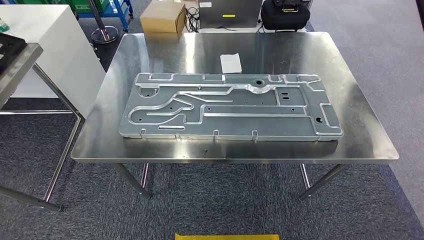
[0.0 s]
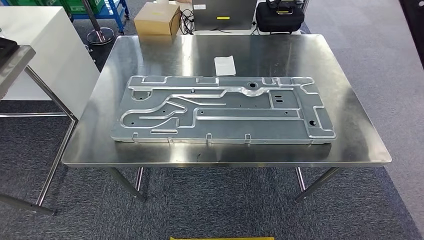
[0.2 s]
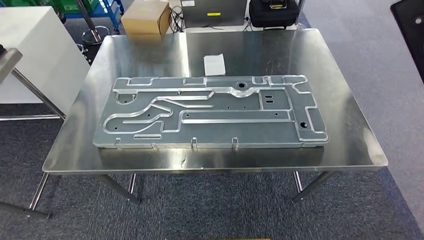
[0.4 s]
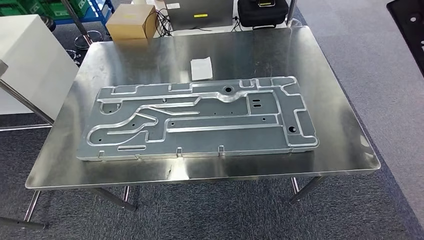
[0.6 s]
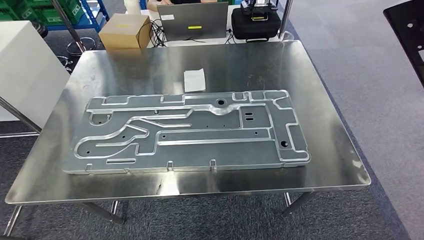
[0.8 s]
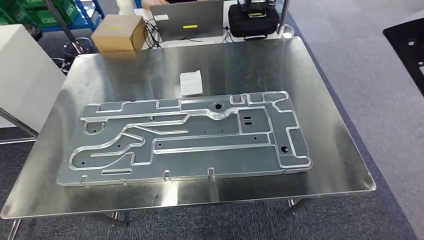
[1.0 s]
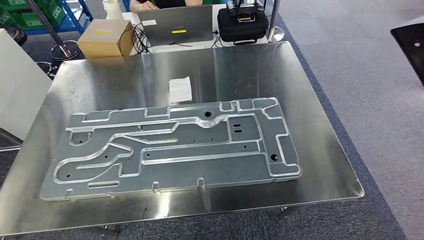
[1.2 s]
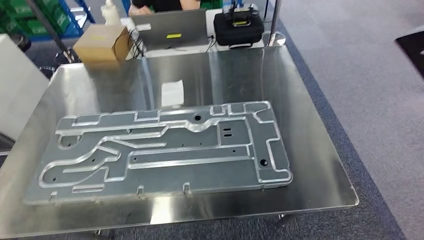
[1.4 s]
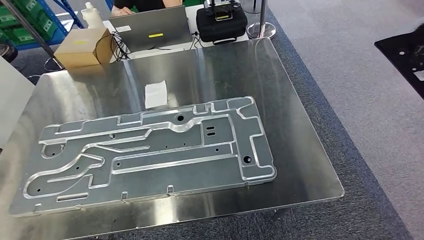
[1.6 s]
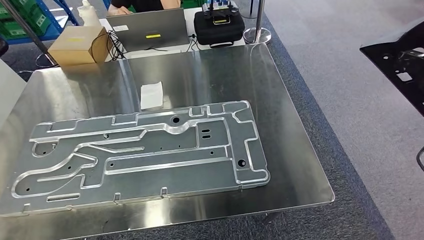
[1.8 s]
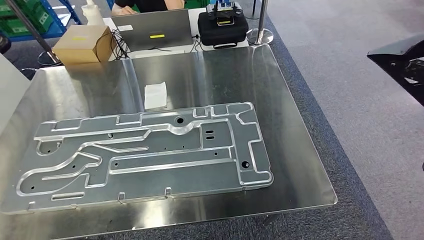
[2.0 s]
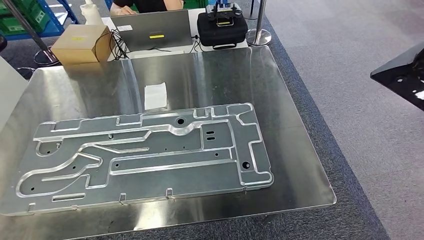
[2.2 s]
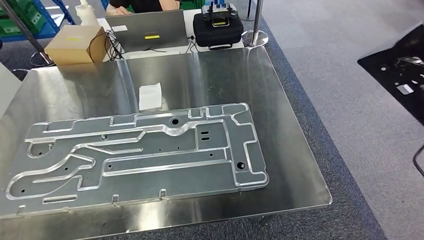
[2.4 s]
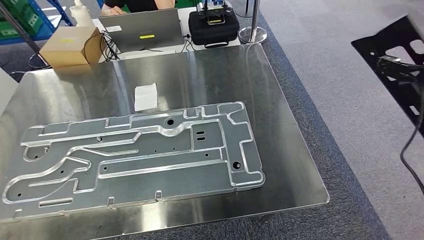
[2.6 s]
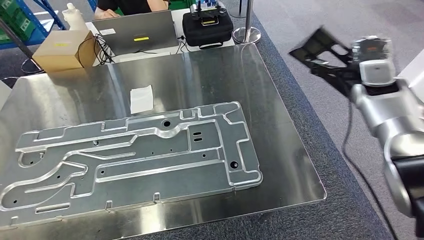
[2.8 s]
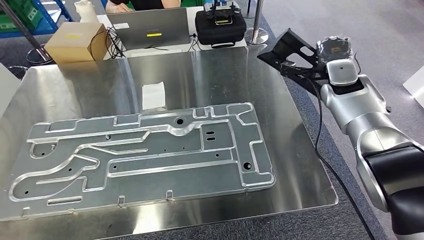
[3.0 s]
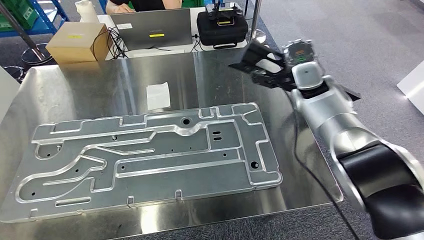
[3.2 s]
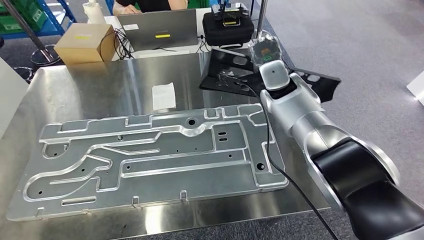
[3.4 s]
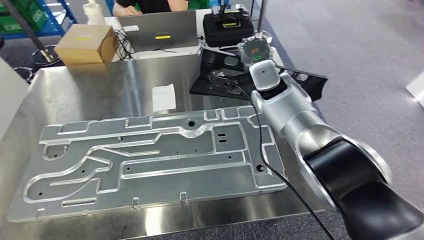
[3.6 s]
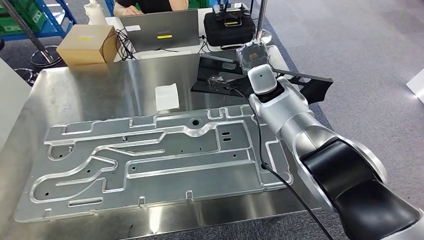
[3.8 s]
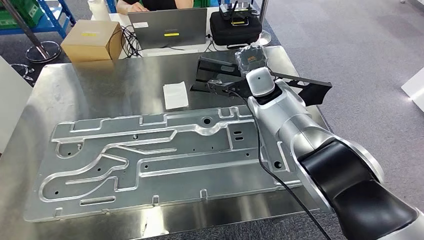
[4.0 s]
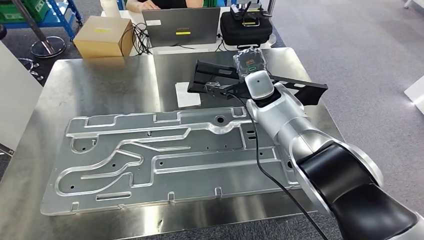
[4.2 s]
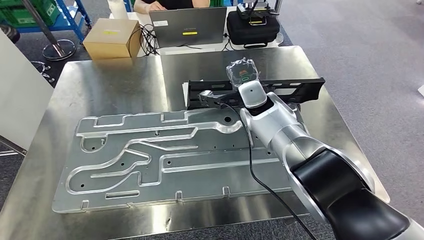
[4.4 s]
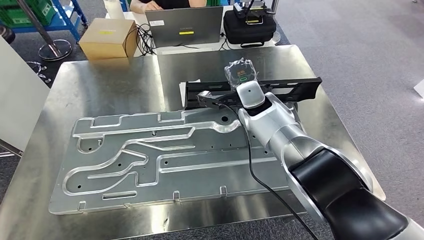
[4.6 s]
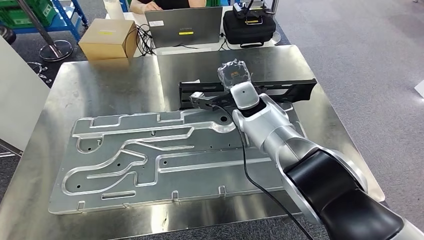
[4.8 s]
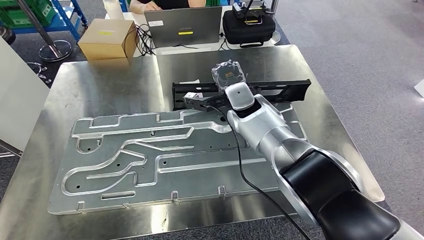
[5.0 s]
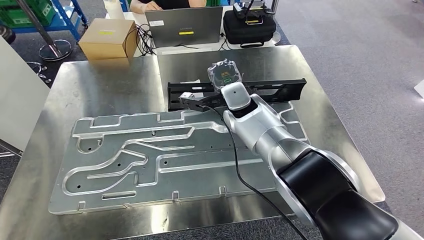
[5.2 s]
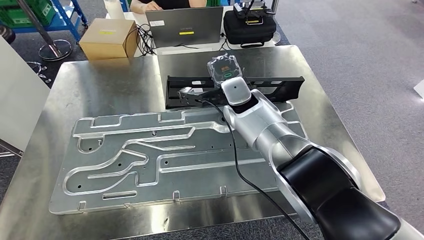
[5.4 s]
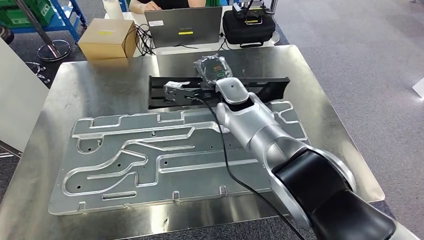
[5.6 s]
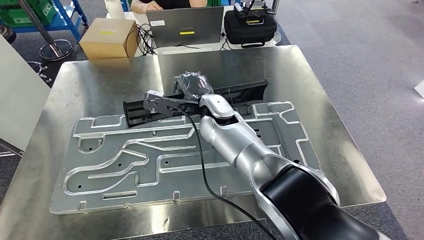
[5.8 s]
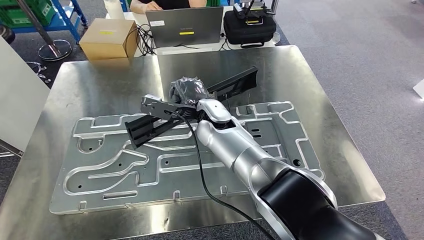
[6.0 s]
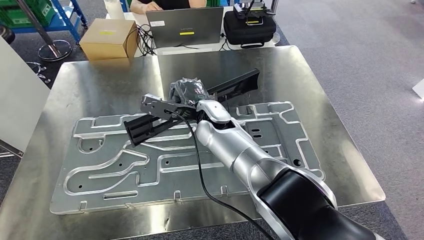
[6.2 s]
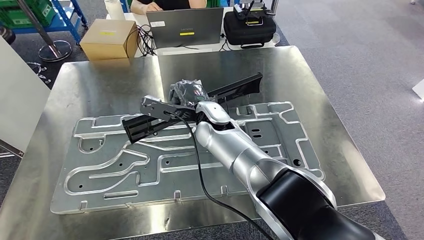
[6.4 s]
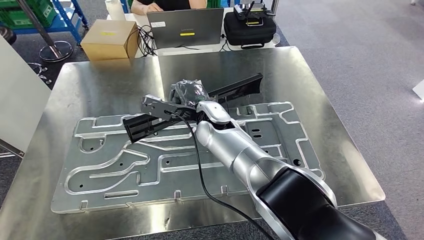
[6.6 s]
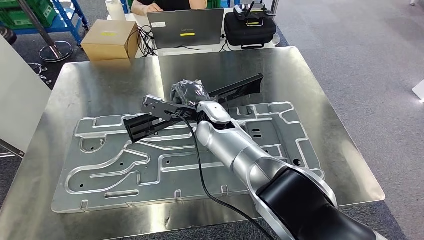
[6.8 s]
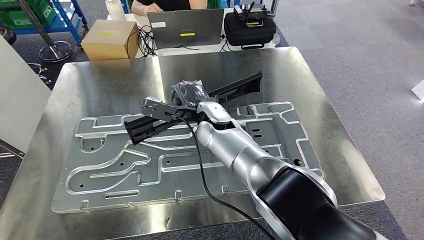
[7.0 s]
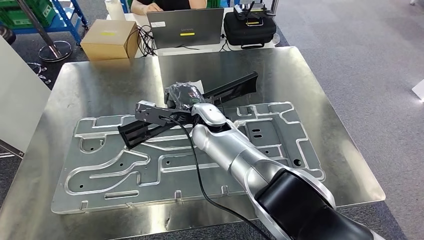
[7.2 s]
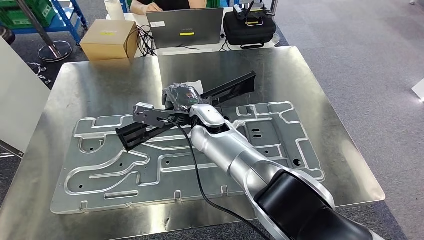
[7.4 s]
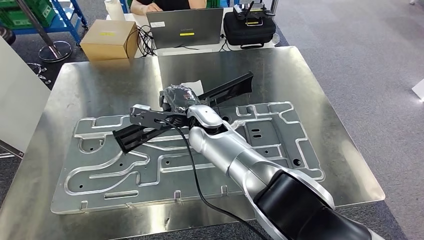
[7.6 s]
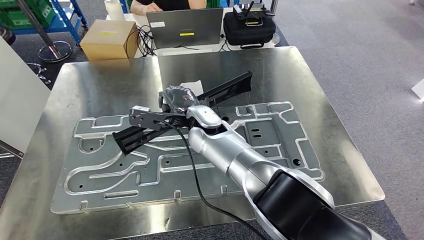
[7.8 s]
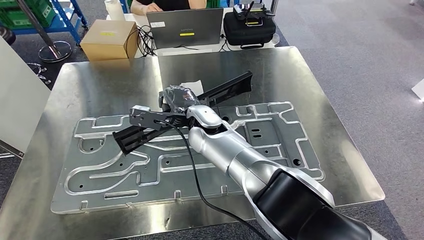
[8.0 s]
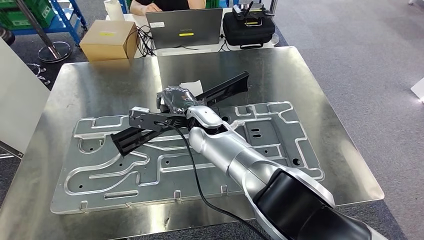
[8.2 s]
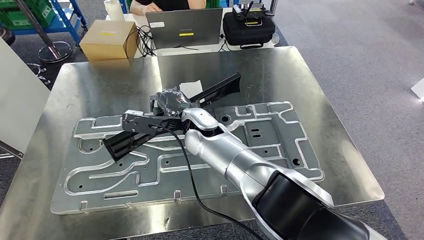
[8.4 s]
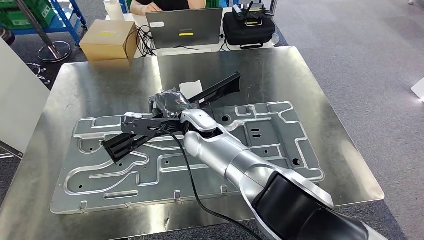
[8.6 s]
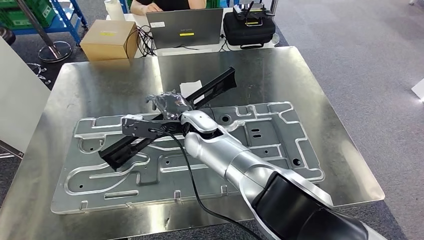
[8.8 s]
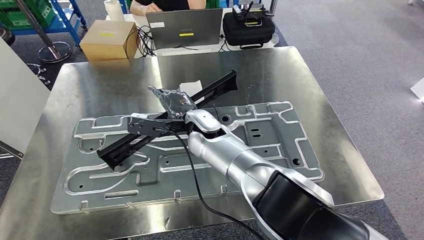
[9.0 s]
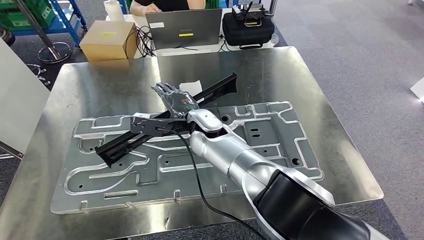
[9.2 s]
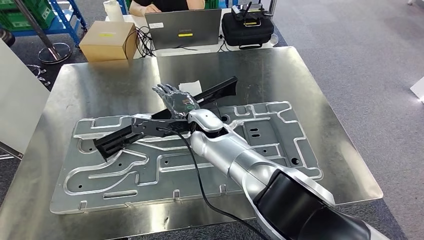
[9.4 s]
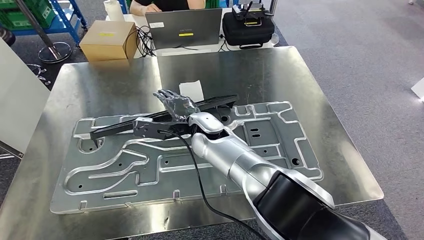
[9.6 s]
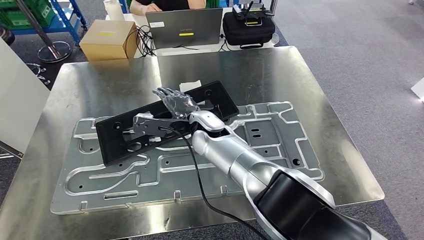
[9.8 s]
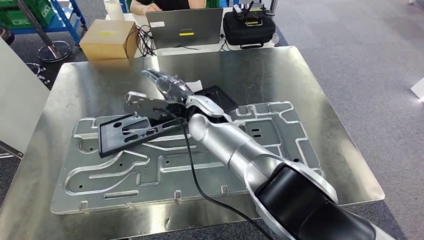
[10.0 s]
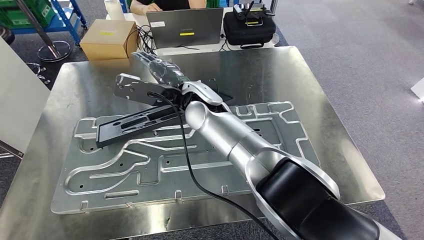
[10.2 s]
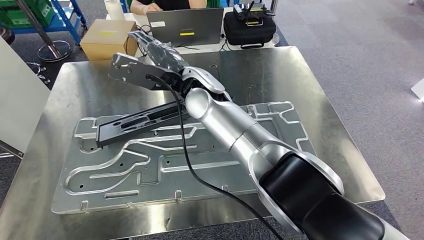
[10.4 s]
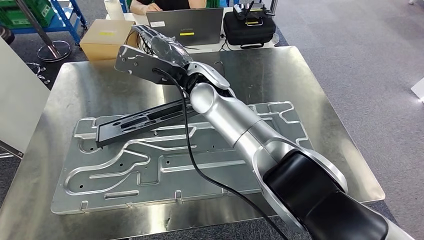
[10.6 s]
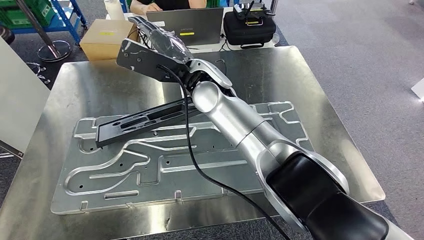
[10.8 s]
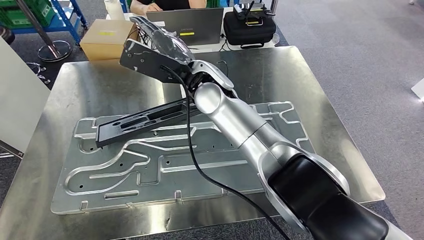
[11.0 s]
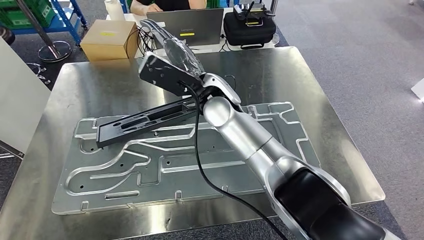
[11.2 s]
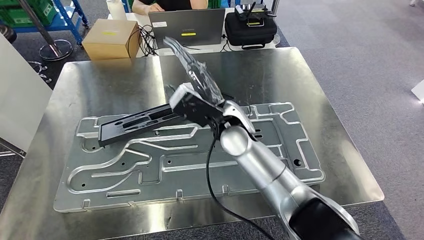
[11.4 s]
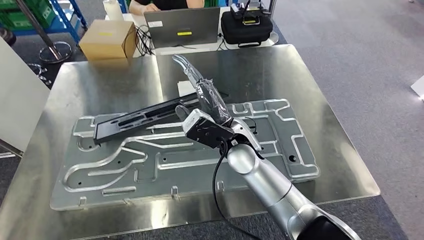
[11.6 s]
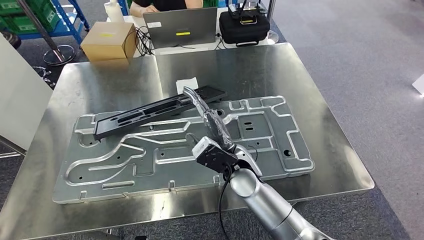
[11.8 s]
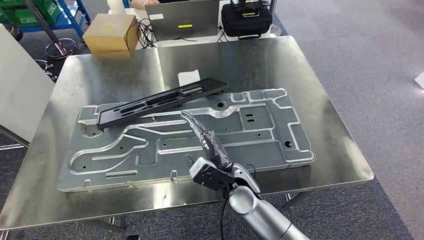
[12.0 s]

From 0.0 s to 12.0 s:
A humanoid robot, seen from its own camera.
From 6.0 s to 9.0 s: The hands stay close to where they were, moving slightly.

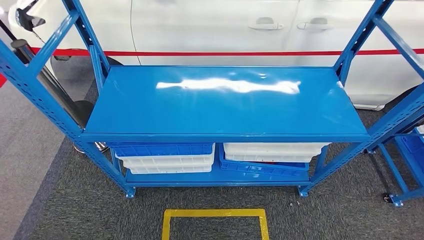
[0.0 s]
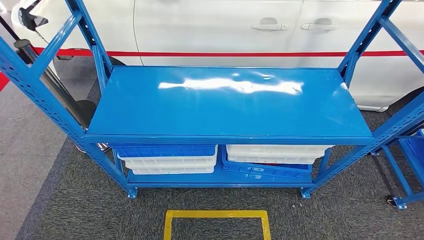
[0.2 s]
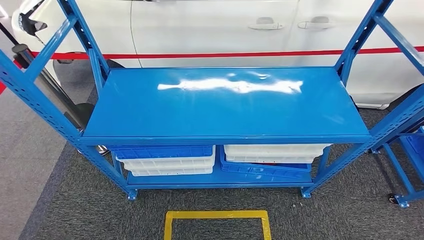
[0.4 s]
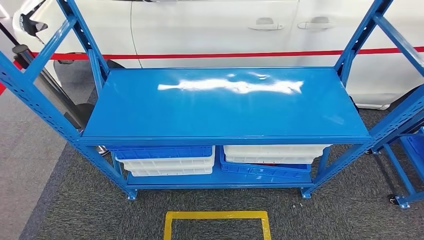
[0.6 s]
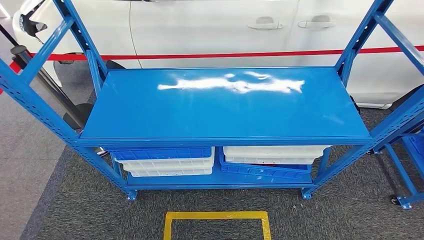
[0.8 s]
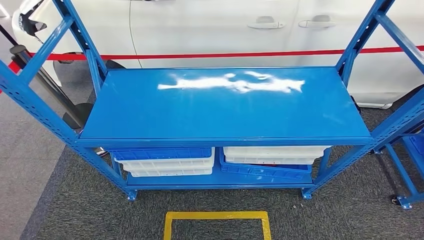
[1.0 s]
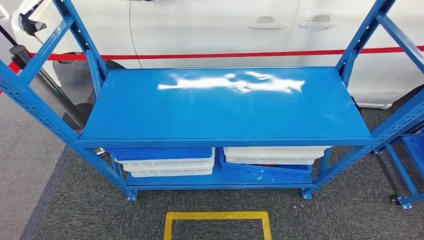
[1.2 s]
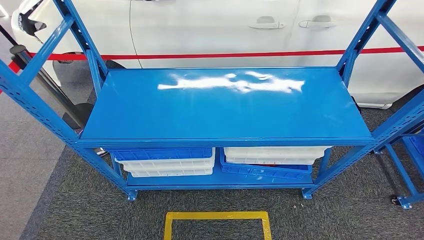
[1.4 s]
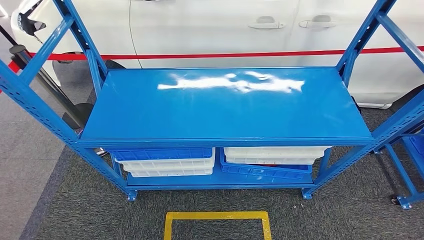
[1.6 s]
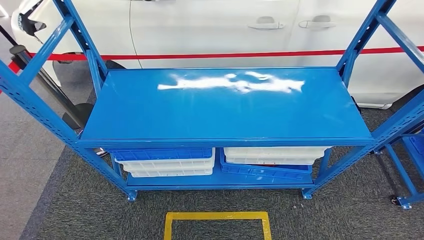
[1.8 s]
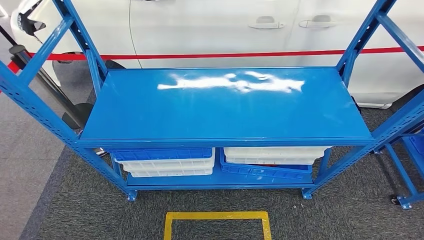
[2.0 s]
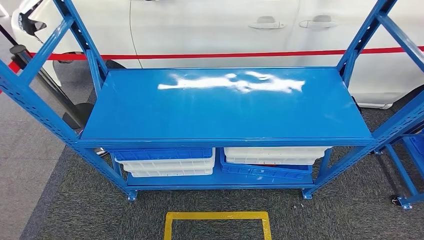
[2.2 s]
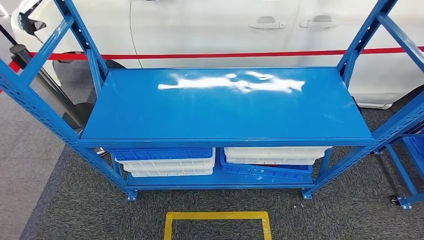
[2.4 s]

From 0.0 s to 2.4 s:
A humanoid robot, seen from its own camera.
Step, from 0.0 s to 2.4 s: Move to the initial position of the shelf.
From 1.2 s to 2.4 s: The hands make only small movements.
